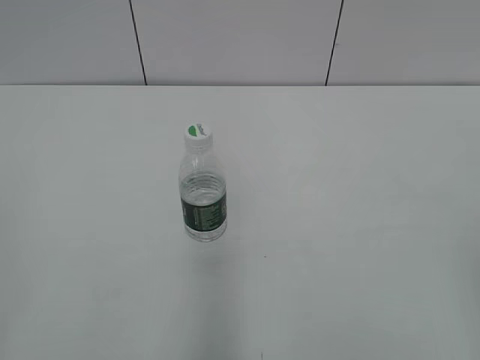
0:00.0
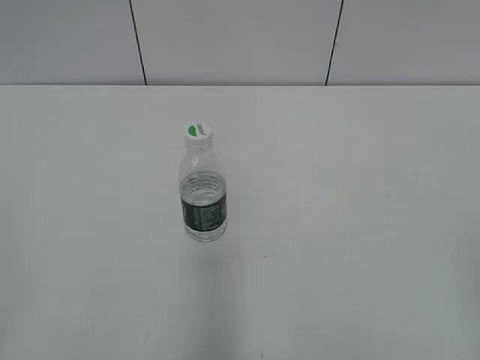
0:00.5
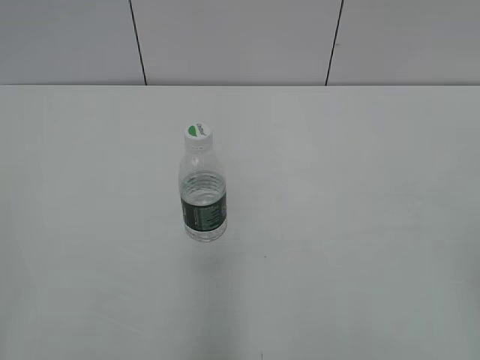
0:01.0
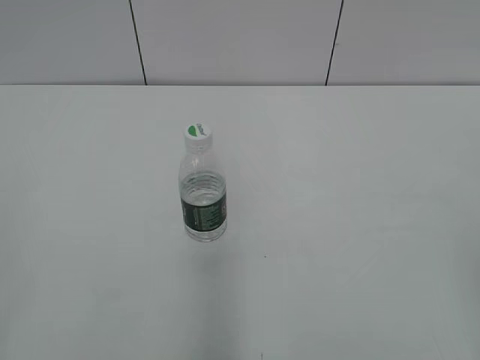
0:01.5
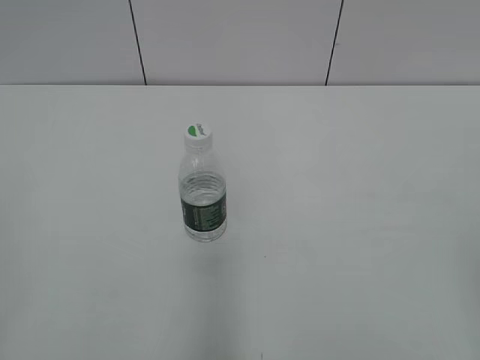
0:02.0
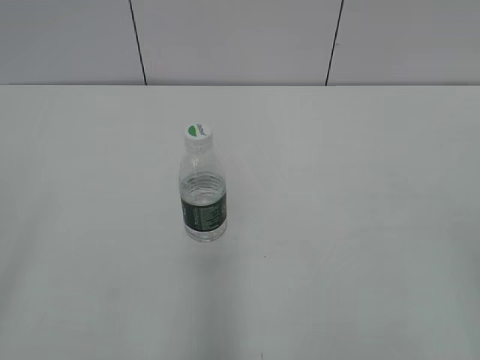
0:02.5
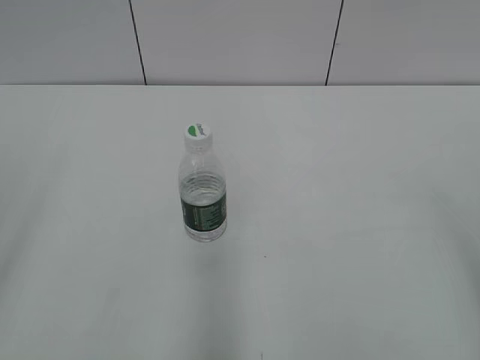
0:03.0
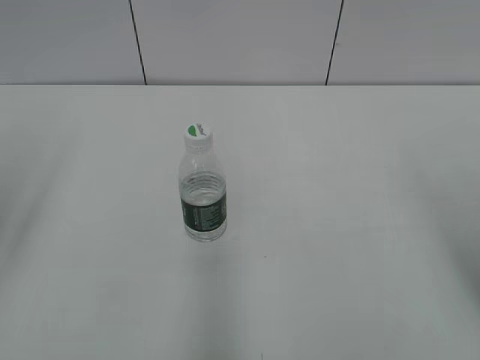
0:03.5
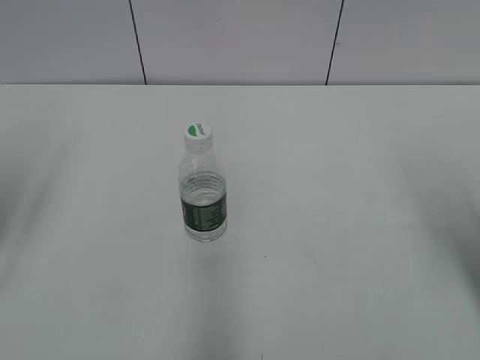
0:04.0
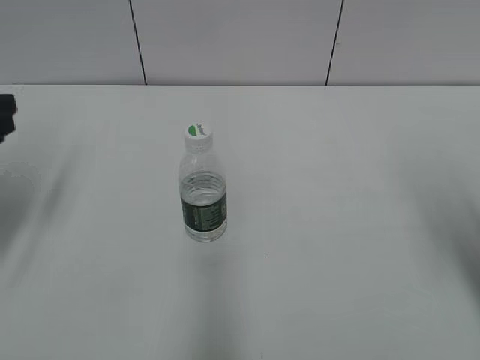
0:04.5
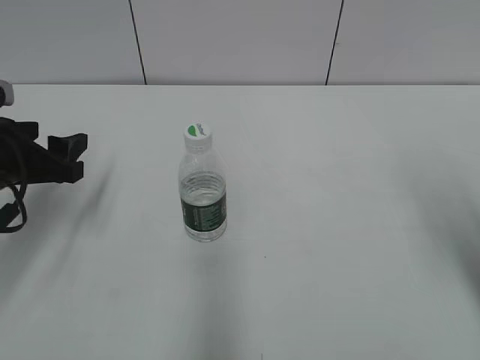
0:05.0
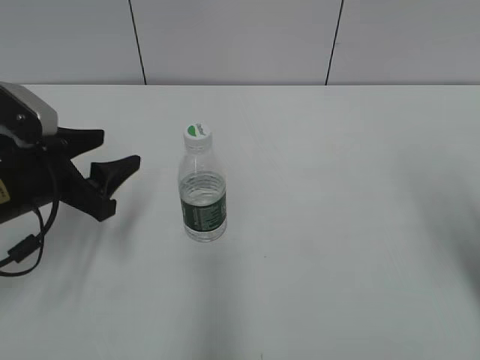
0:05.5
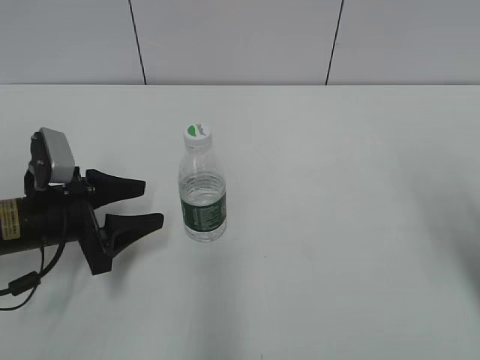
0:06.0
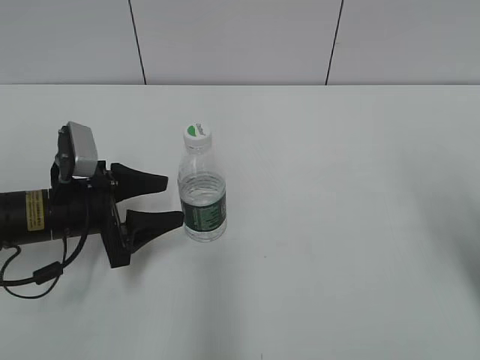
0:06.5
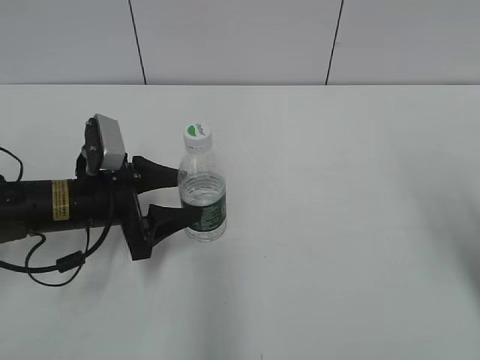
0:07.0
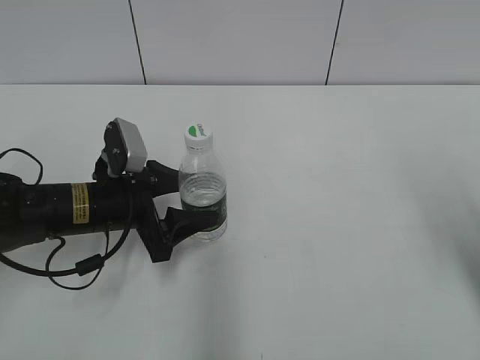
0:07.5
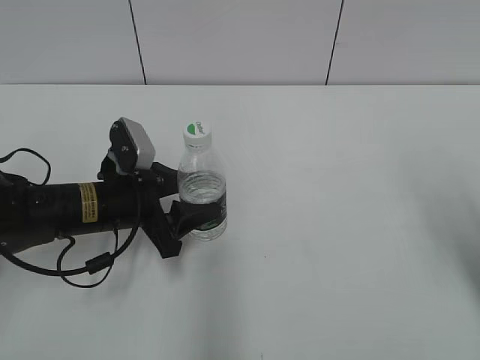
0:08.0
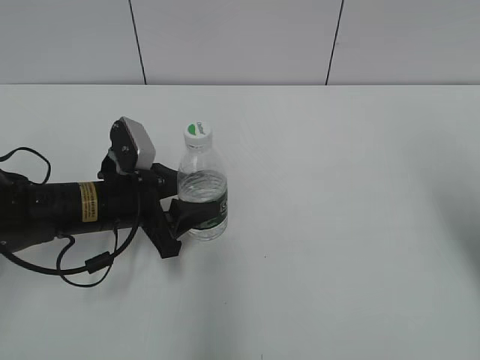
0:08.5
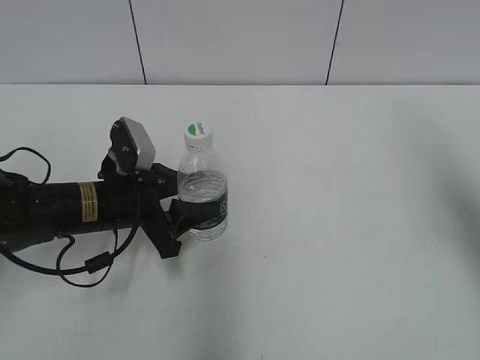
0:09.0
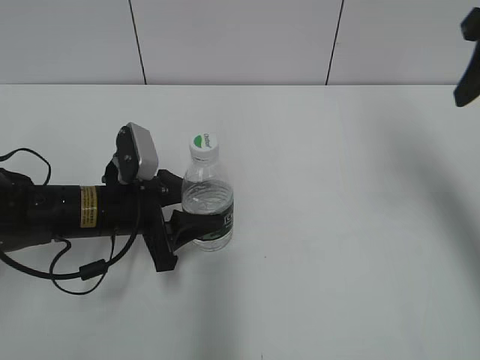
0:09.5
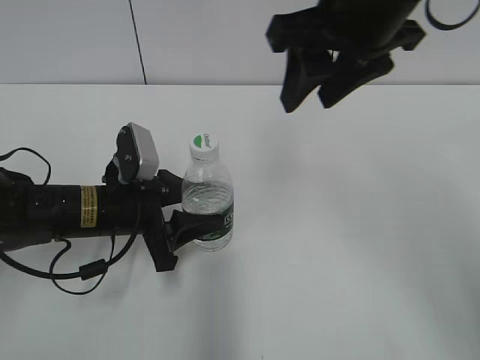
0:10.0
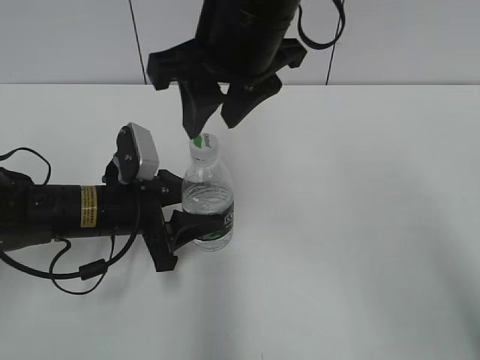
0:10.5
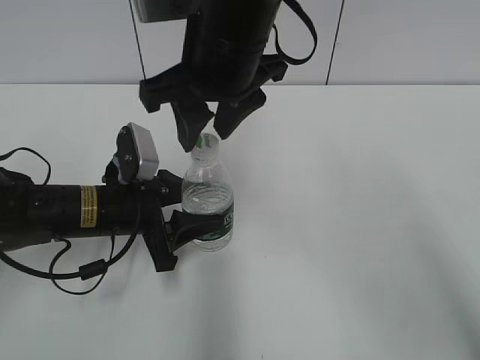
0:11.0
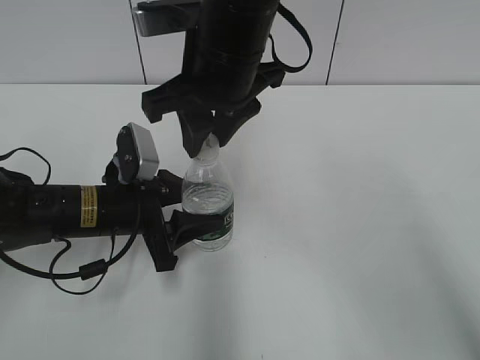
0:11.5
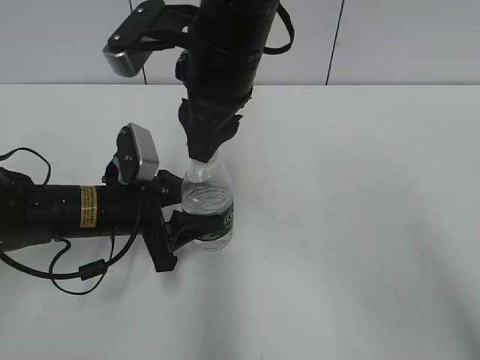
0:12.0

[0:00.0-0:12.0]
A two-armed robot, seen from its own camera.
Step, 0:00.0 to 0:09.0: Grasp the bottle and move it to the center of the table with the left gripper.
0:02.0 to 0:04.0: The two grippers go about 20 cm forward. The left gripper opens its fingers.
0:04.0 to 0:06.0: The left gripper shifts roughly 20 cm downward and to the right.
0:06.0 to 0:08.0: The left gripper heads to the right, covering approximately 5 cm.
0:08.0 to 0:10.0: The right gripper shifts some 25 cm to the left and forward, and closes up.
0:10.0 to 0:12.0: The right gripper heads to the left and downward, covering roughly 15 cm.

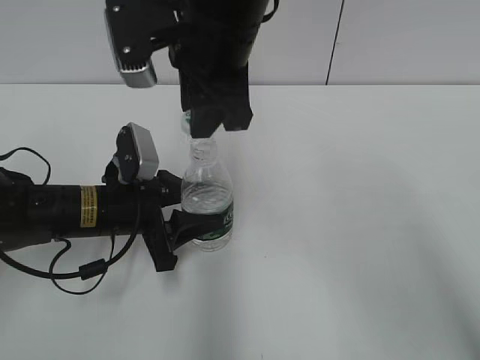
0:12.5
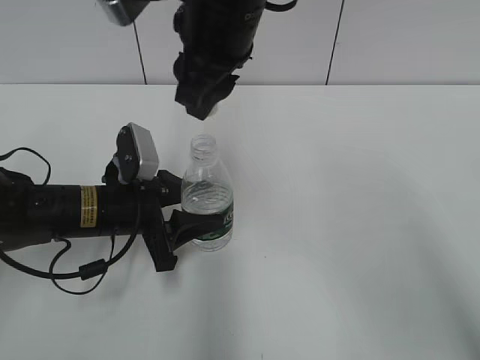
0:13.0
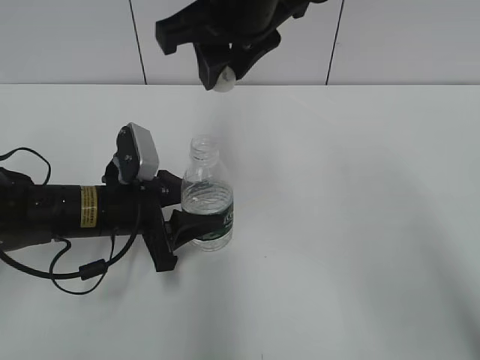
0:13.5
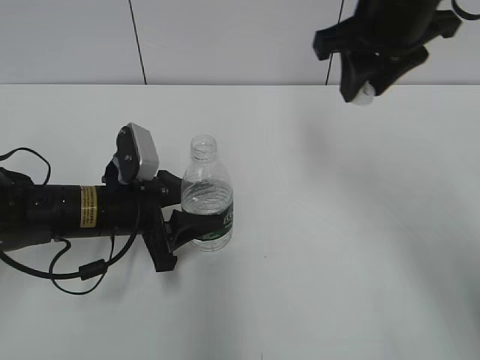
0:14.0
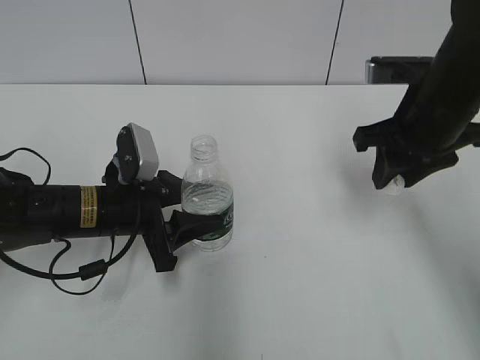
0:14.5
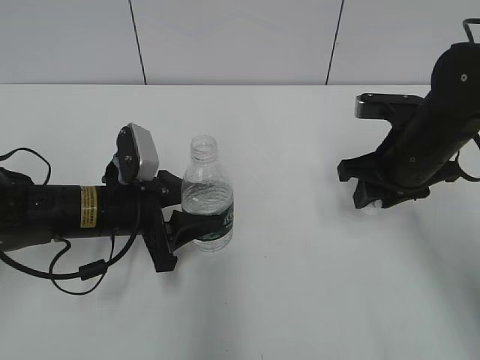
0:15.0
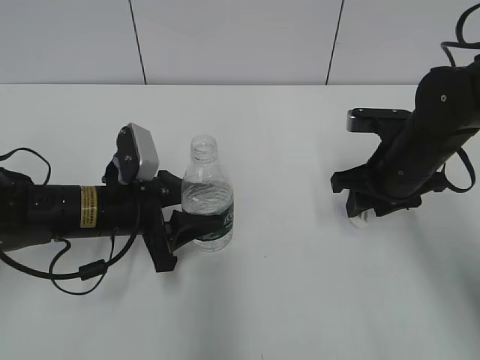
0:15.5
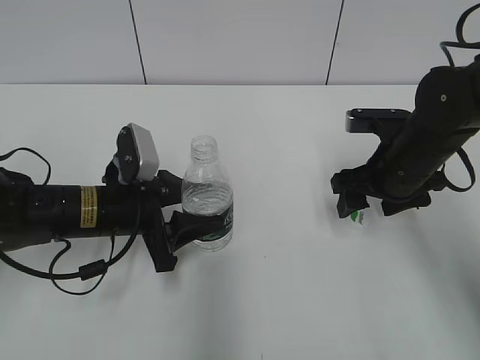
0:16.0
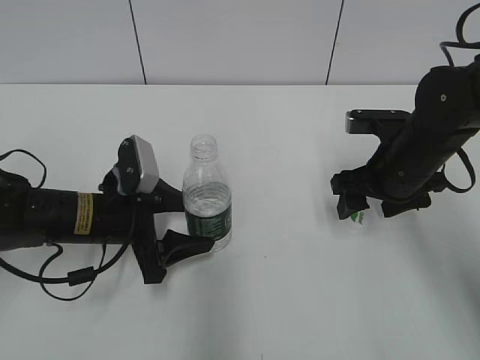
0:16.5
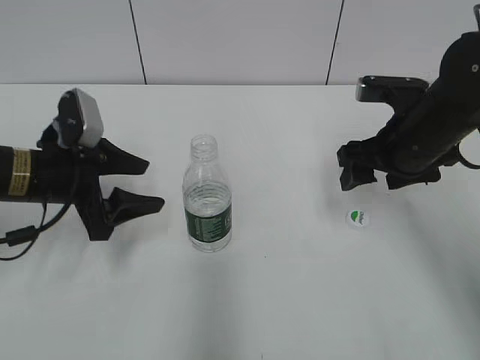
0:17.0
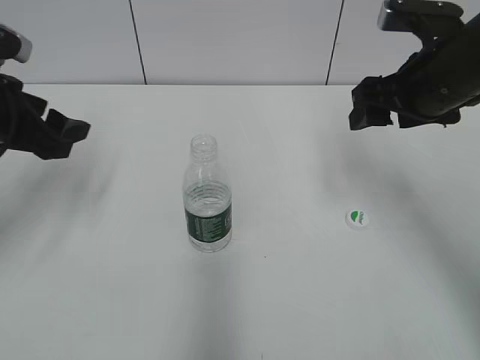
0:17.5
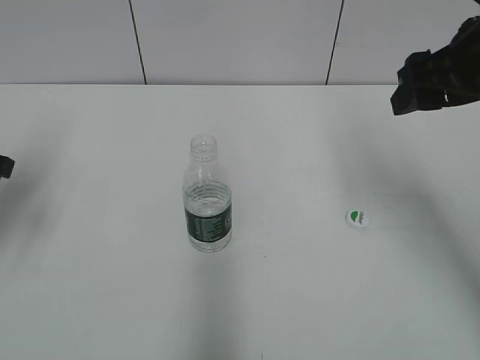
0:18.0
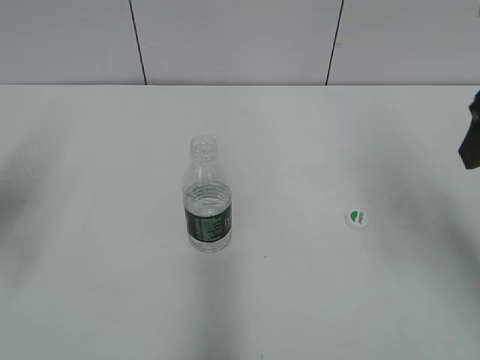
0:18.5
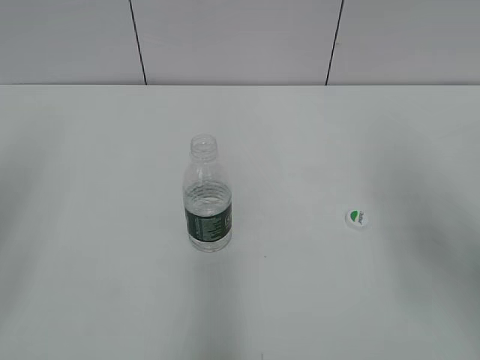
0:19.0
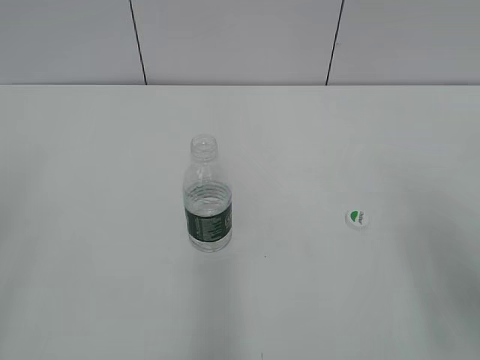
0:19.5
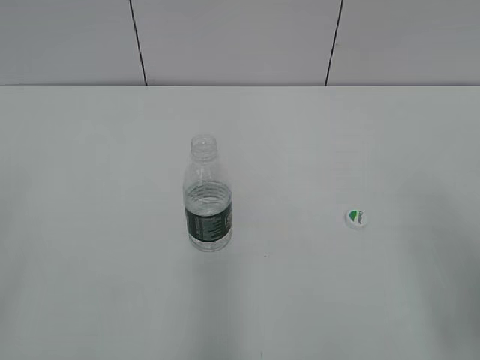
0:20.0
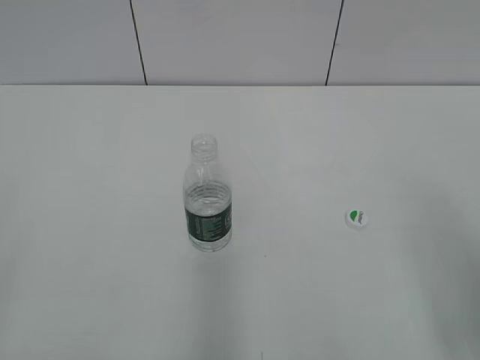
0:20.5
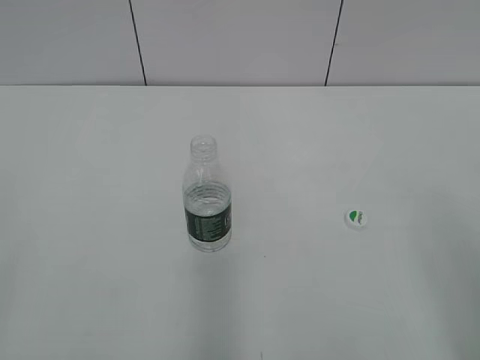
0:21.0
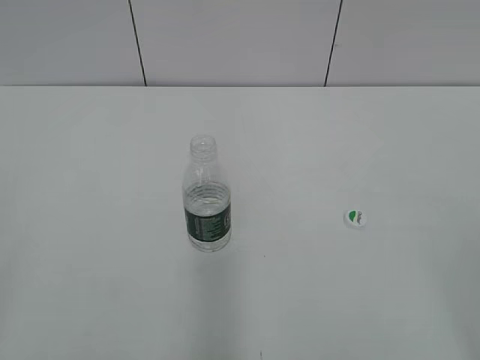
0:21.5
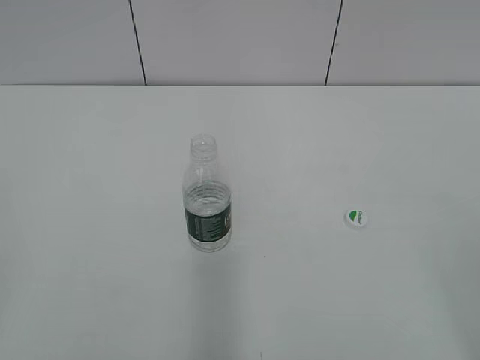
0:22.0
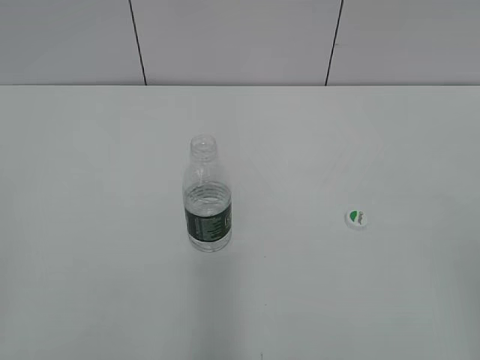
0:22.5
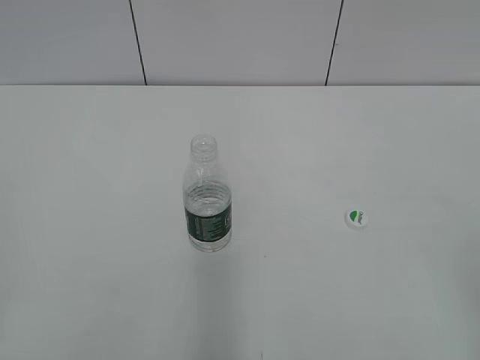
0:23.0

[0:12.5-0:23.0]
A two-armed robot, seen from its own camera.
Step, 0:13.0 to 0:15.5: Place the bottle cap on the table with the right gripper.
Step, 0:16.0 to 0:17.0: Place the bottle on the table with the left gripper.
0:12.5 to 0:14.5: The right gripper goes about 20 cm to the right.
0:14.5 to 0:16.5: The left gripper opens up. The right gripper shifts some 10 cm downward, and opens its fingers.
0:16.5 to 0:19.0: The left gripper heads upward, to the left and backward, covering some 30 cm. The right gripper shifts roughly 25 cm upward and backward.

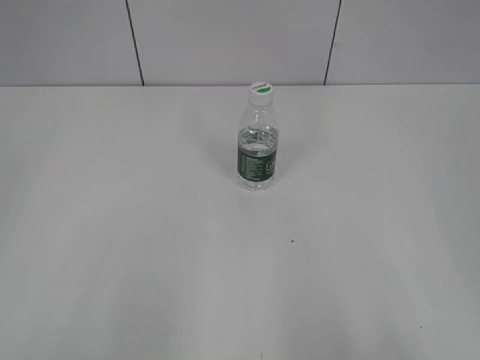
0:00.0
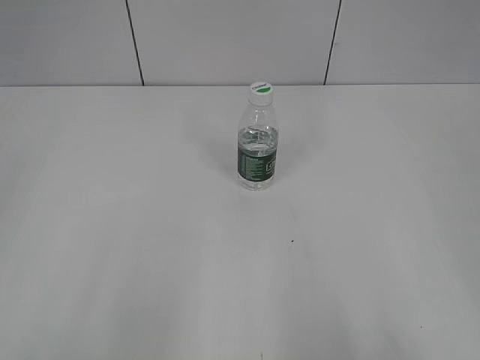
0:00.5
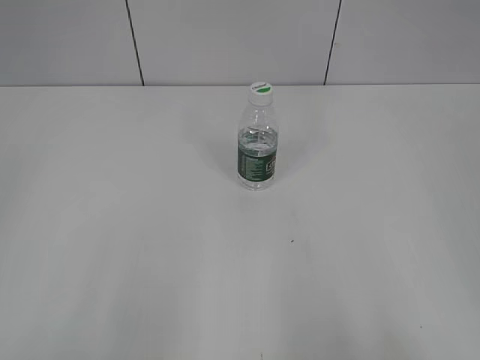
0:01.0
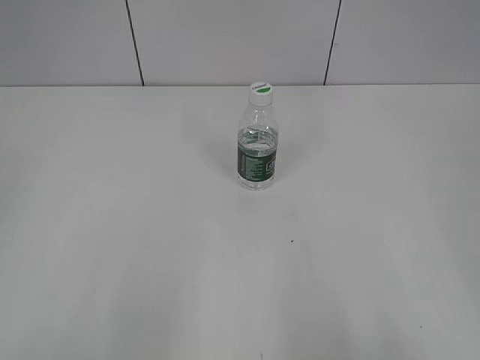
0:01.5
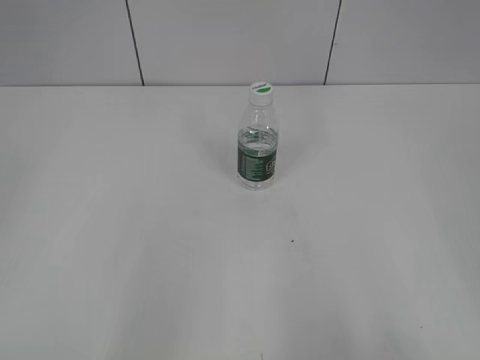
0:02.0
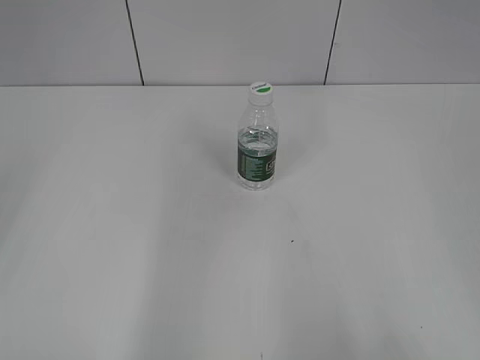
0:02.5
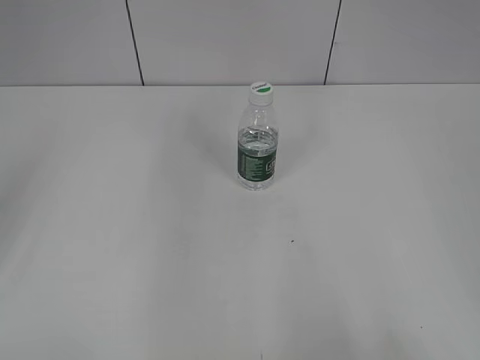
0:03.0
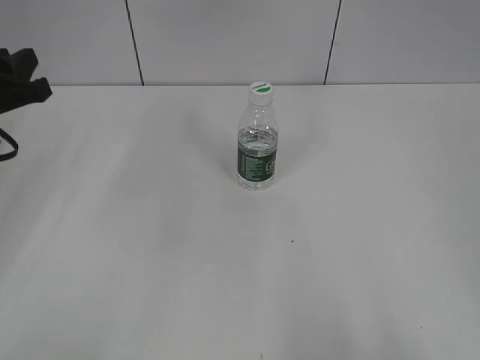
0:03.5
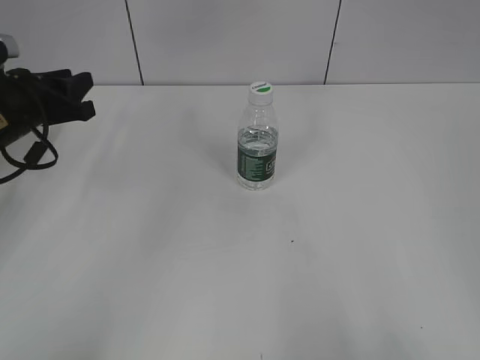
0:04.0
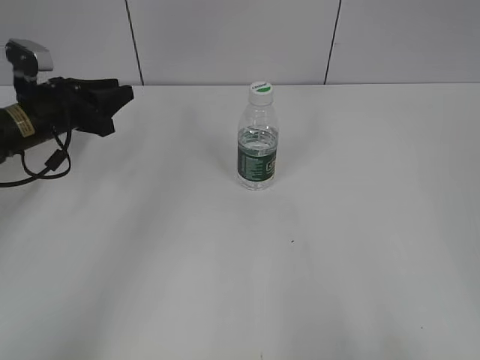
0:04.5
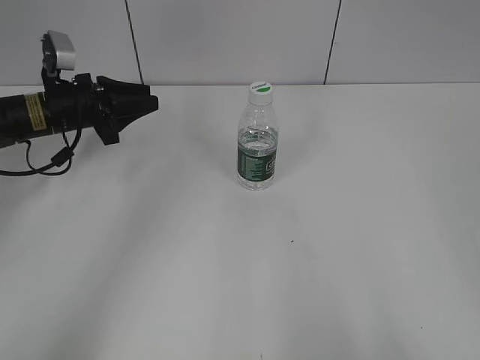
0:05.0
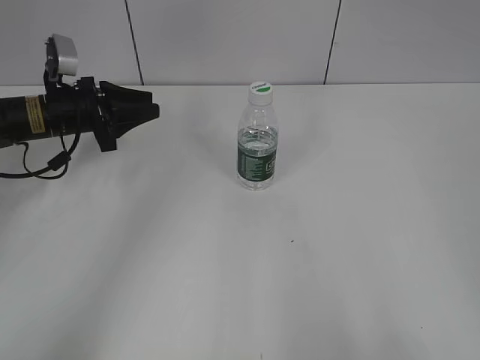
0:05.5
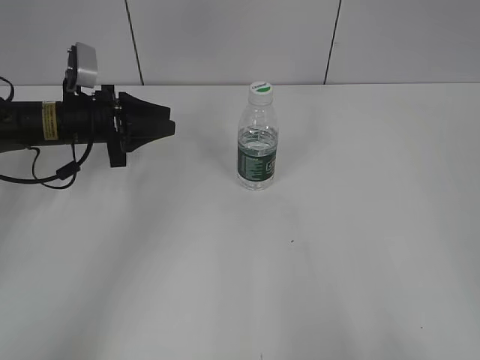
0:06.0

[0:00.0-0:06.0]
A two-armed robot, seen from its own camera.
0:02.0 to 0:04.0: The left gripper shifts some 40 cm forward and downward.
0:04.0 to 0:06.0: The left gripper moves roughly 10 cm.
